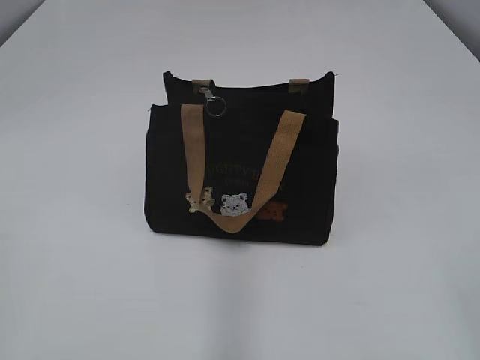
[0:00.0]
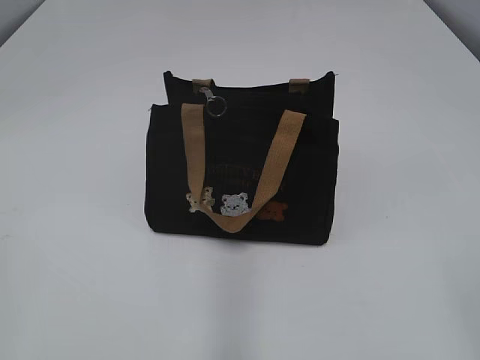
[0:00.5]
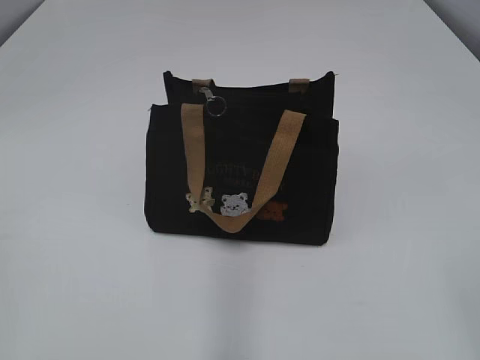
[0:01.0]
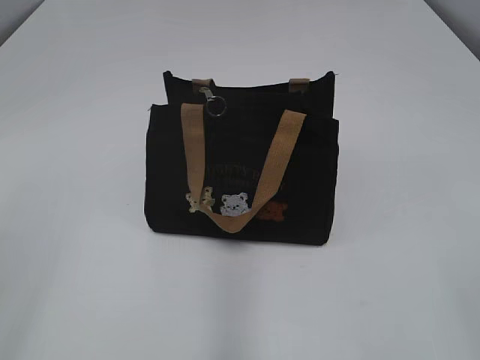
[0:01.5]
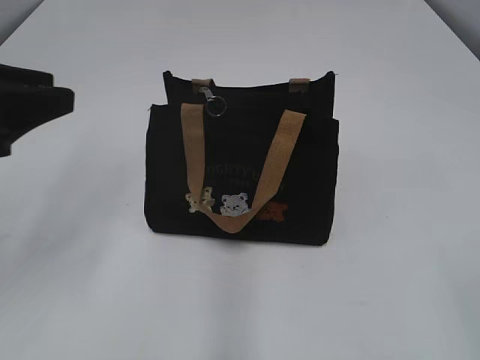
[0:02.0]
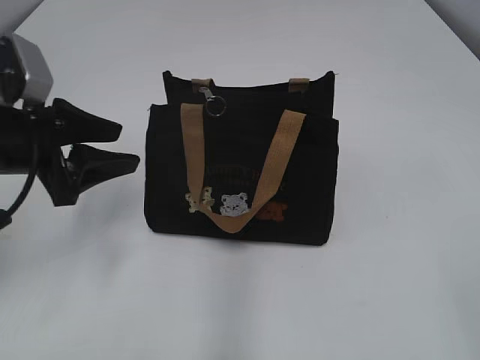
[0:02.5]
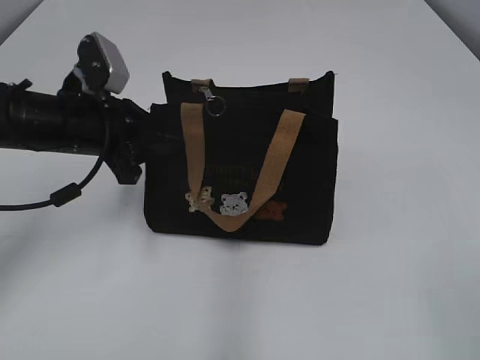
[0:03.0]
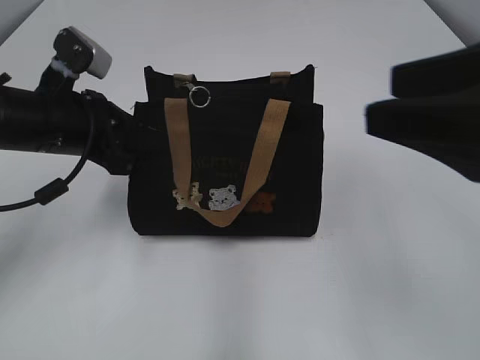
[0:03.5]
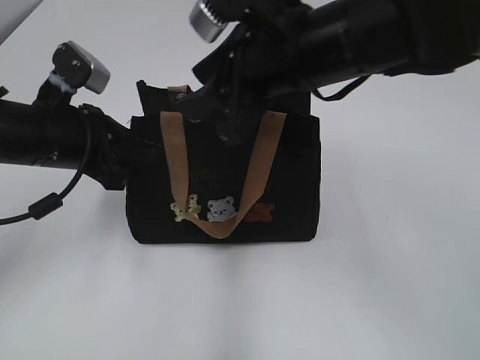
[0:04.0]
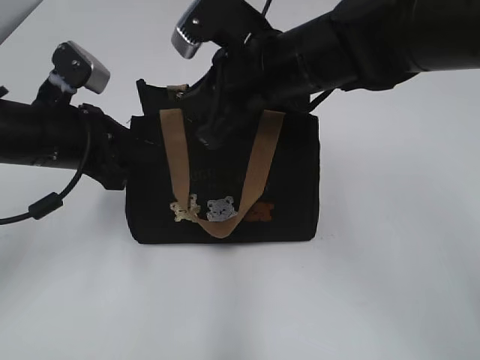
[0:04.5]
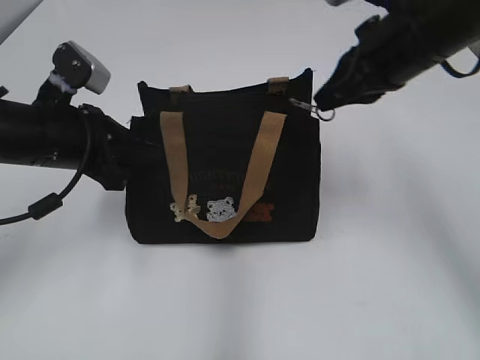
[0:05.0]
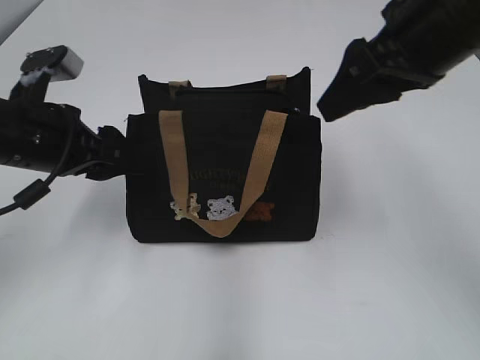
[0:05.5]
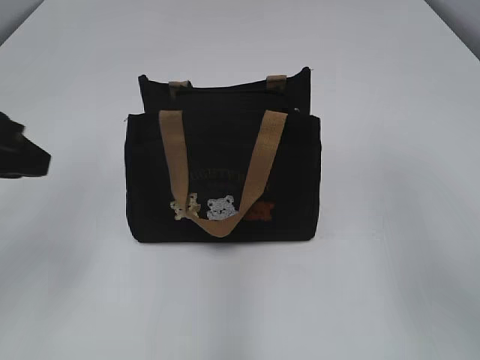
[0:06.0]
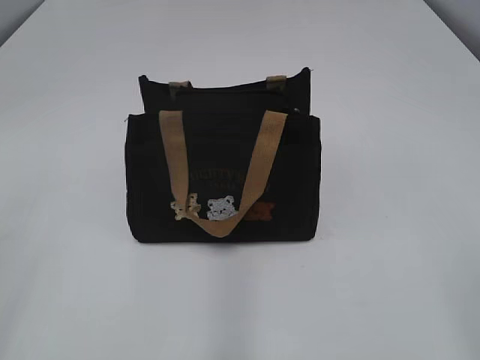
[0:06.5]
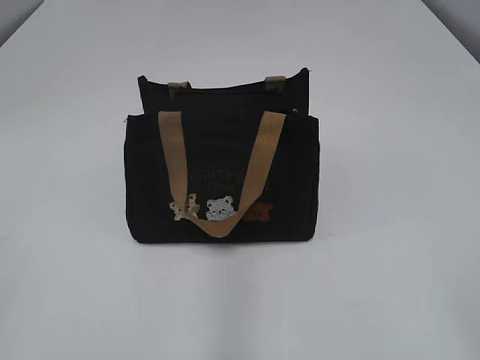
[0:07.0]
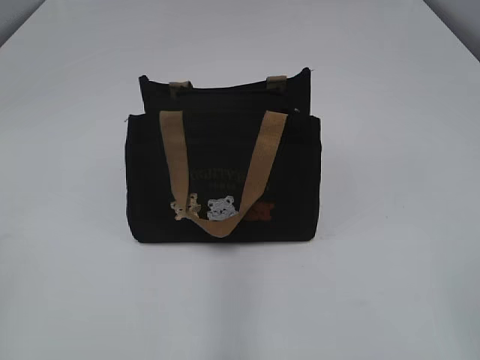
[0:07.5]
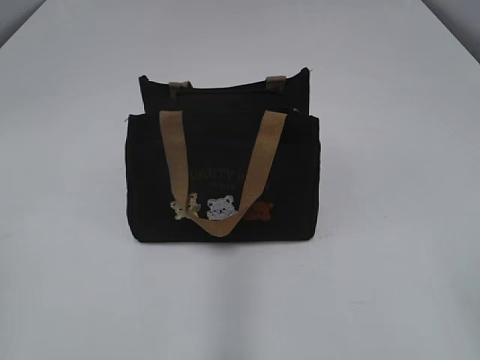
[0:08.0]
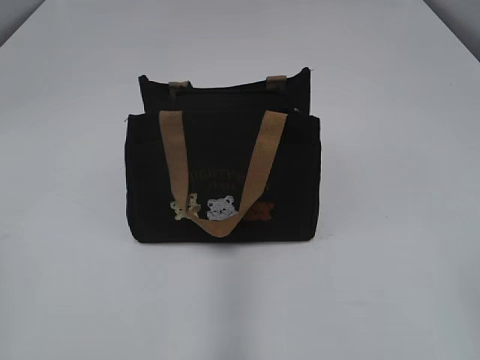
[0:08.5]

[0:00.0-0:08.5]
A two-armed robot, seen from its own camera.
Step, 0:00.0 to 0:05.0: Pull open the zipper with your right hand.
0:02.0 to 0:04.0: The right gripper goes some 35 cm forward and to the left. Meanwhile the left gripper moves downward, forward and to the right, approximately 15 cm, and closes its fingers.
0:04.0 to 0:06.5: The left gripper moves backward, upward and to the left, some 30 cm, and opens its fingers, while the right gripper moves backward and to the right, approximately 35 cm, and closes, then reopens.

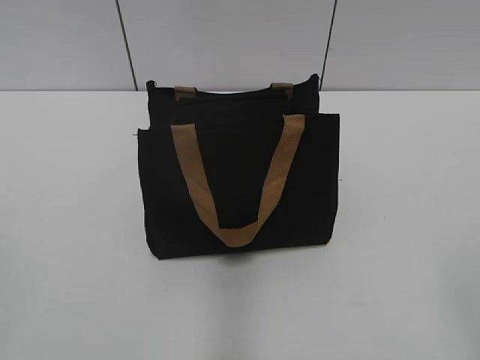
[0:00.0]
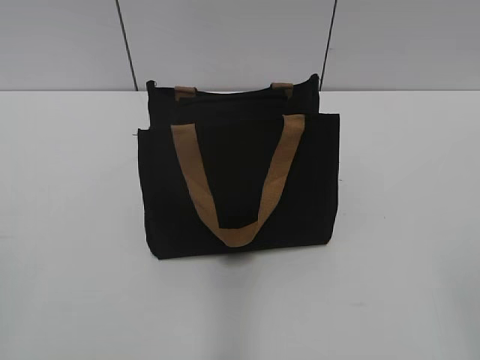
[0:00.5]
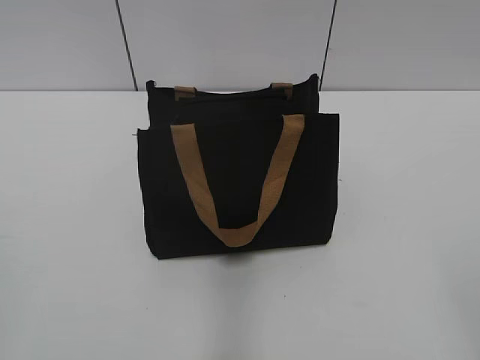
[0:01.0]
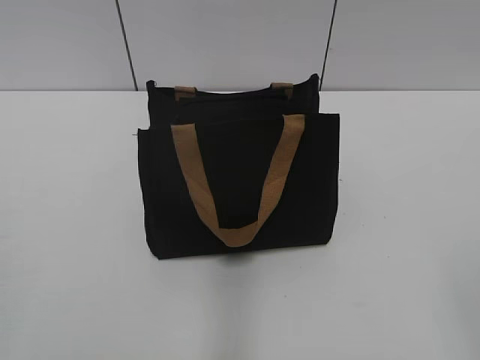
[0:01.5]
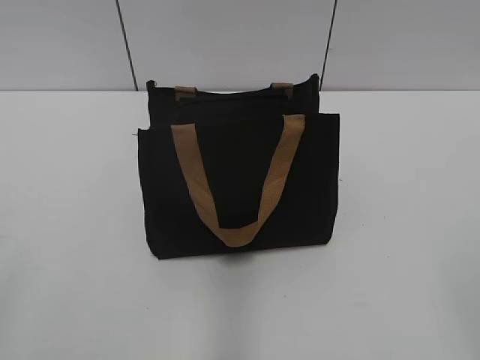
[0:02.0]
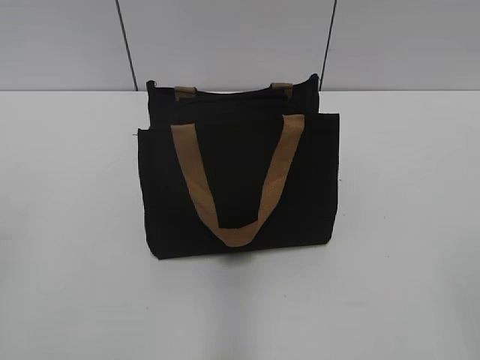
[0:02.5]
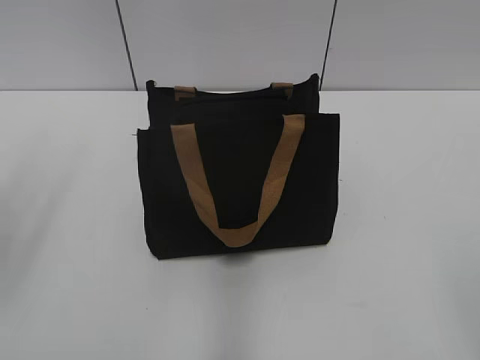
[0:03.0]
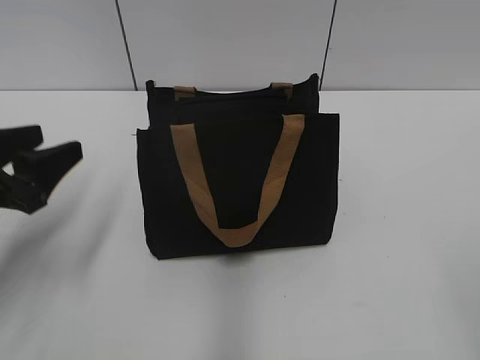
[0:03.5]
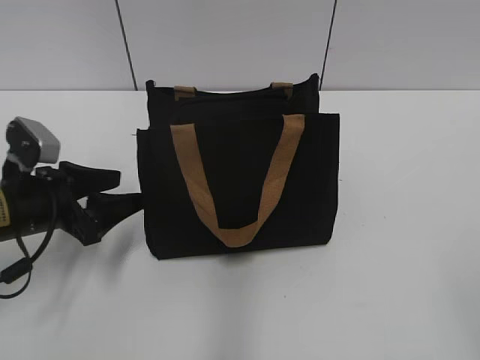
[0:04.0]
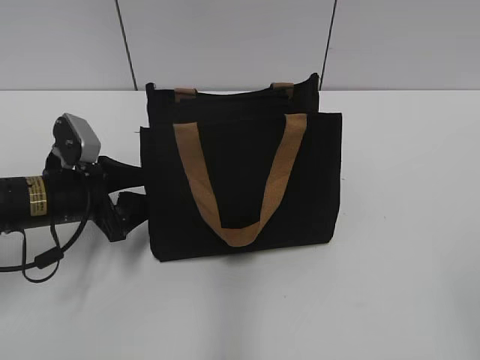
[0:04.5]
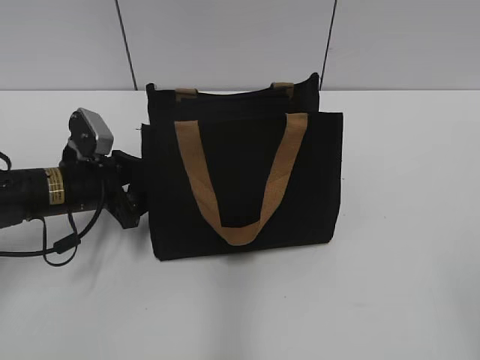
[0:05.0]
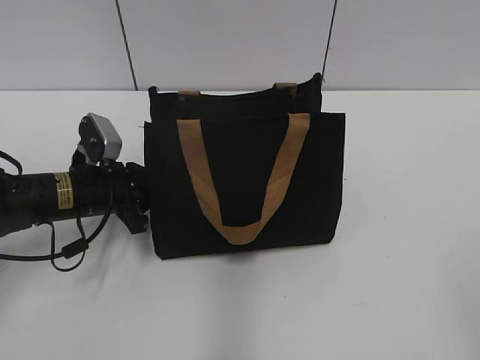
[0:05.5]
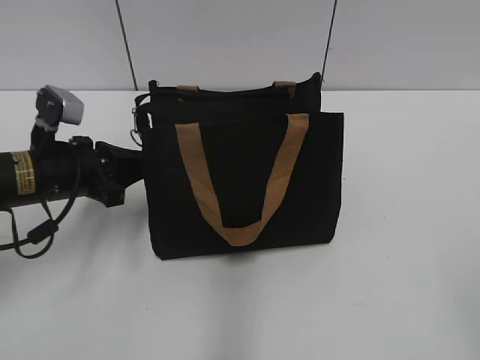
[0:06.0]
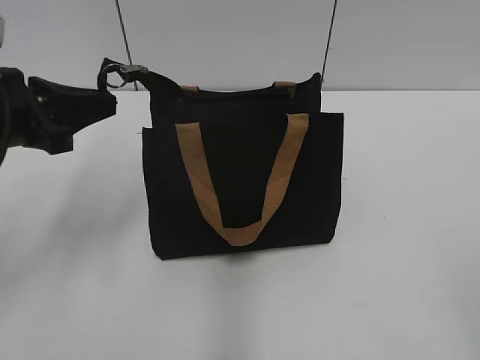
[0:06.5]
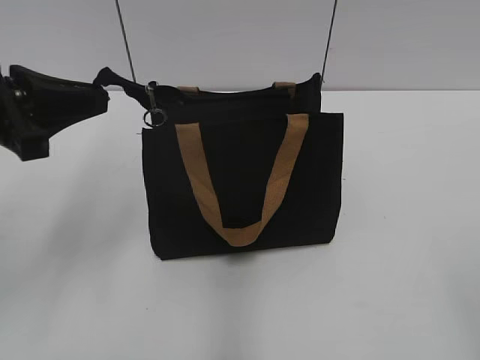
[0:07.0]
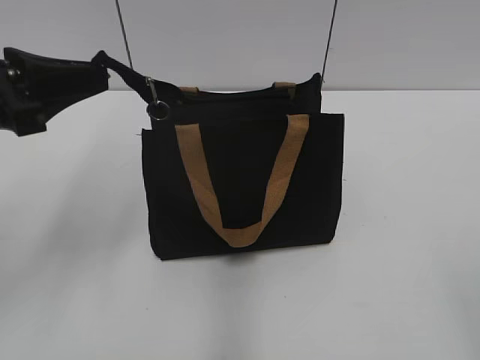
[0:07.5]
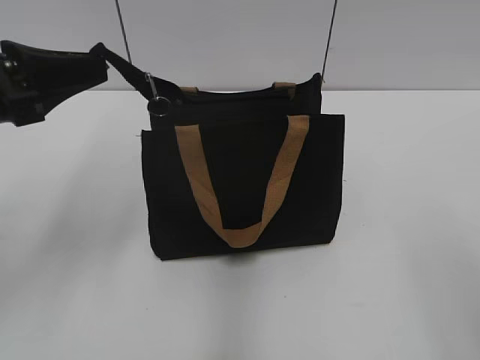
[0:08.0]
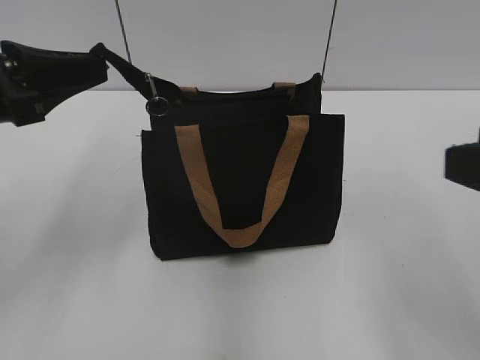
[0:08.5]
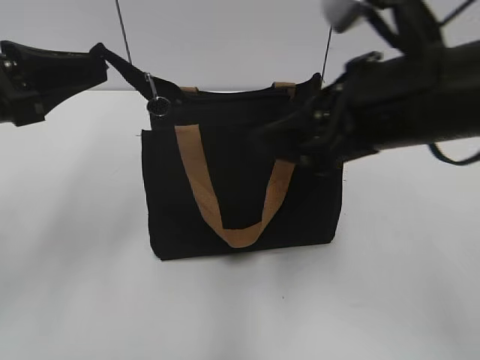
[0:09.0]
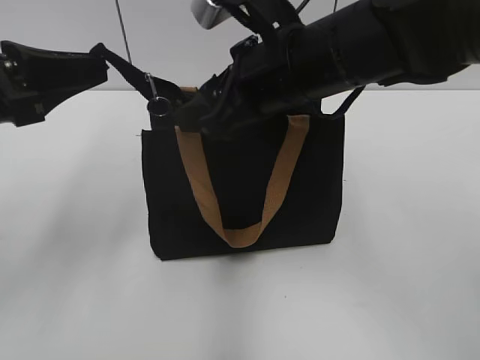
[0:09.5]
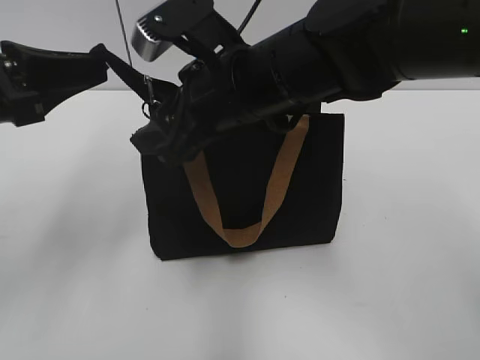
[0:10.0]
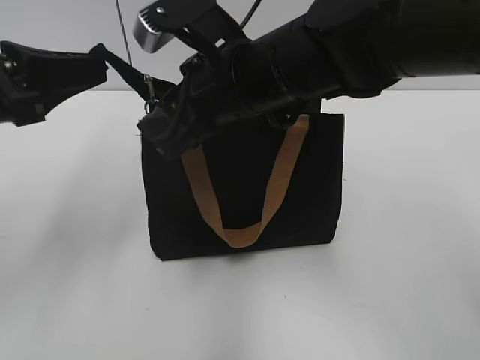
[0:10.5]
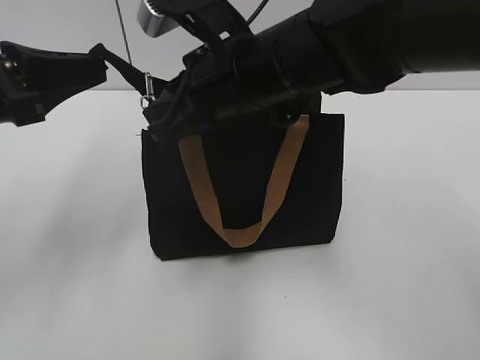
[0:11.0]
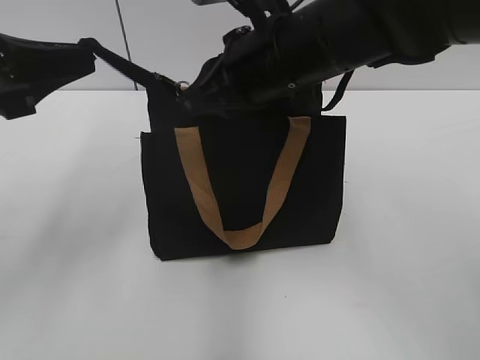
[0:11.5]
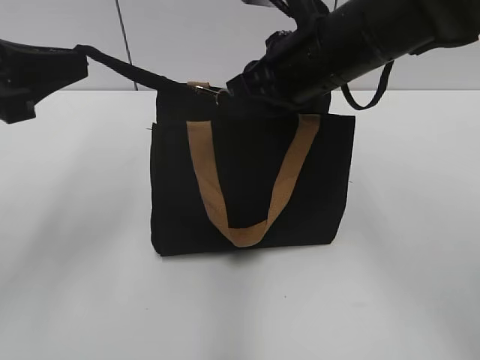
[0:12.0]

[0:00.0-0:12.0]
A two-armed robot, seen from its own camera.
0:02.0 to 0:04.0: The left gripper goes some 30 cm forward and downward.
0:04.0 to 0:06.0: The left gripper closes its fingers.
0:06.0 to 0:08.0: The left gripper is displaced upward and backward by roughly 15 cm.
0:08.0 to 0:10.0: The right gripper goes approximately 35 cm forward and to the left.
0:10.0 to 0:12.0: The right gripper moves to the right, roughly 5 cm, and closes up.

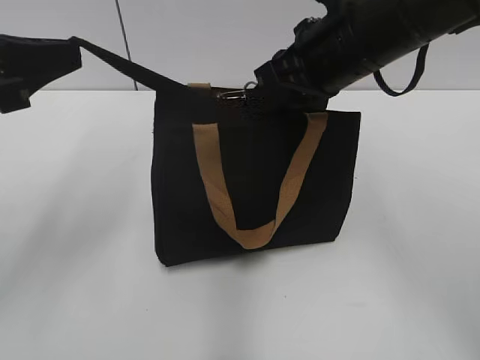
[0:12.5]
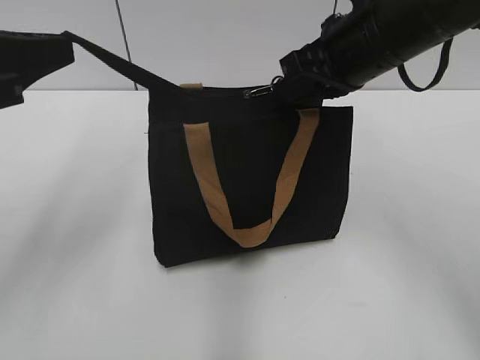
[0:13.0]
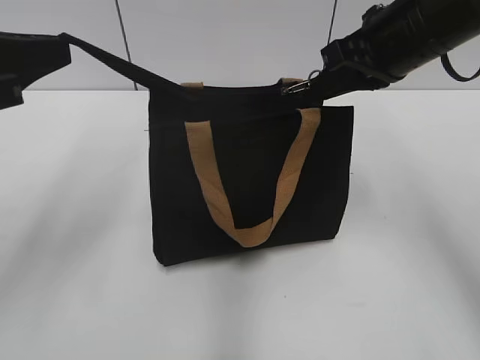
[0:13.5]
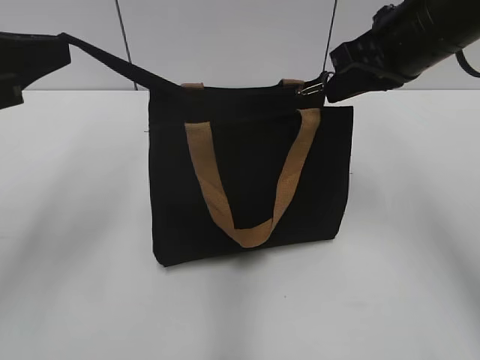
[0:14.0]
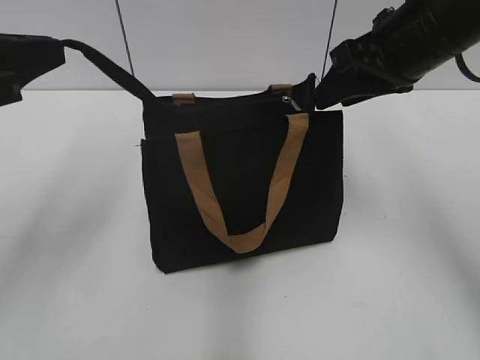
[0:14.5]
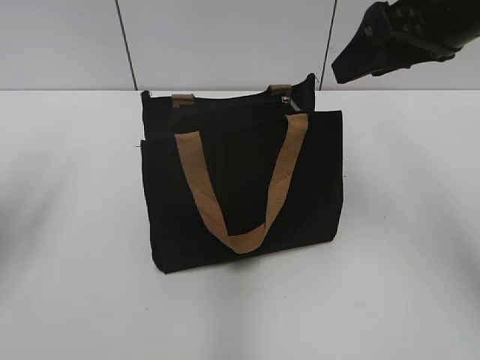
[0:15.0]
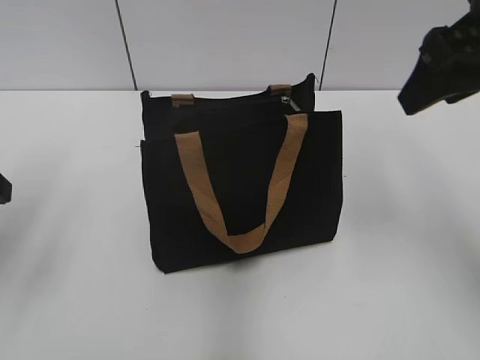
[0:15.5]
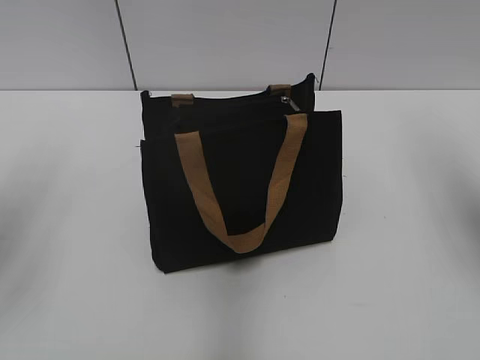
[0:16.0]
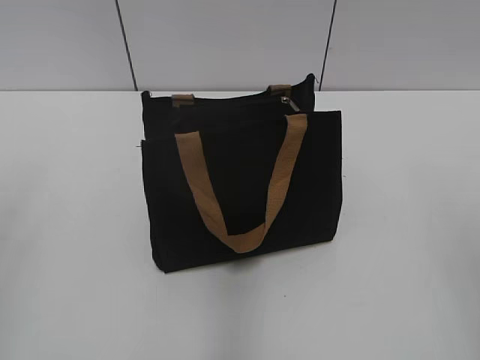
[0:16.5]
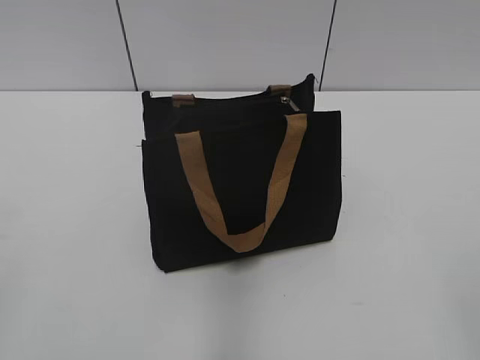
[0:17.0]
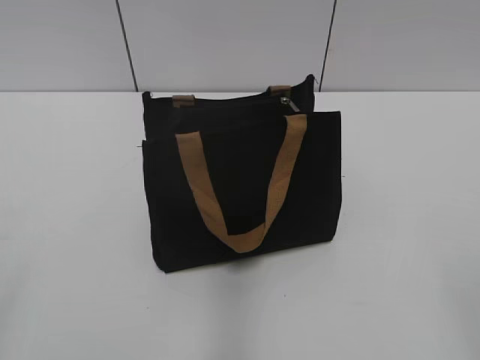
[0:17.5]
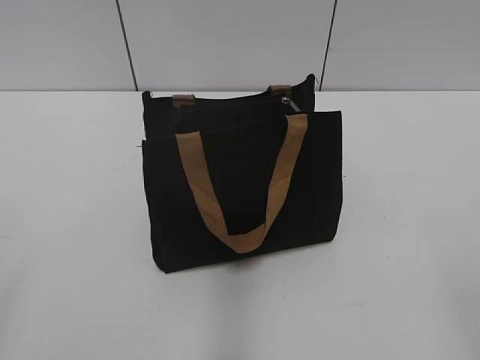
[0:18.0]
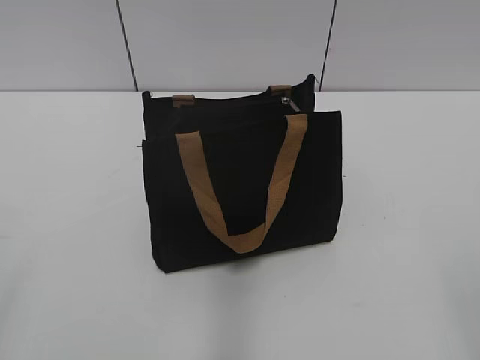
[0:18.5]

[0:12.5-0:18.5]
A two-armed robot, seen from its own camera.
0:12.5 to 0:14.5: The right gripper is displaced to the right by about 5 cm, and opens its fingers.
0:14.5 to 0:16.5: The left gripper moves backward and to the left, about 10 cm, and opens its fingers, while the right gripper heads backward and to the right, covering about 25 cm.
